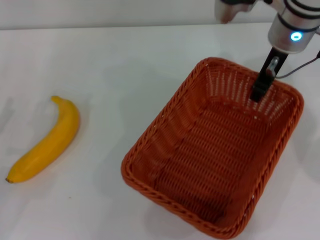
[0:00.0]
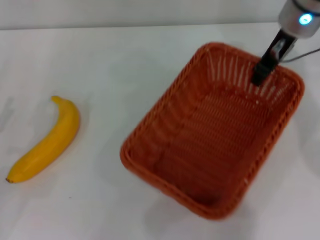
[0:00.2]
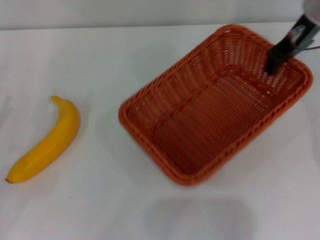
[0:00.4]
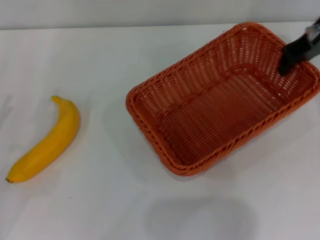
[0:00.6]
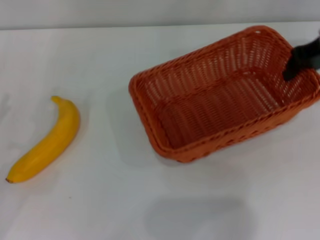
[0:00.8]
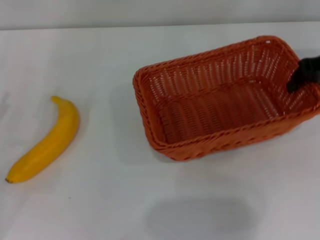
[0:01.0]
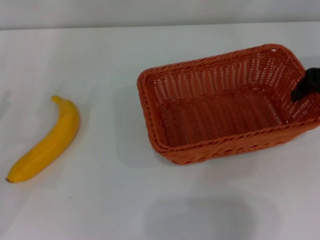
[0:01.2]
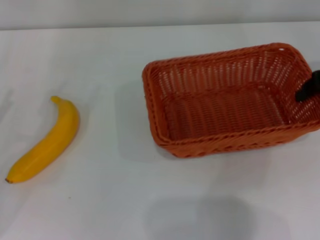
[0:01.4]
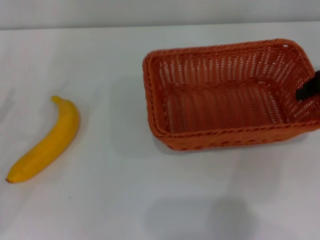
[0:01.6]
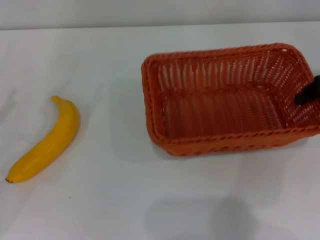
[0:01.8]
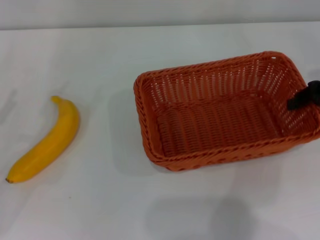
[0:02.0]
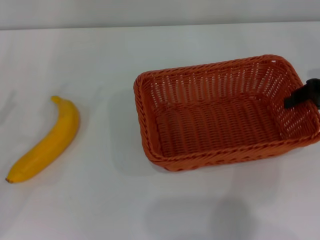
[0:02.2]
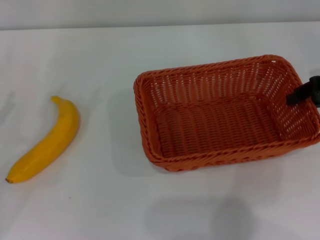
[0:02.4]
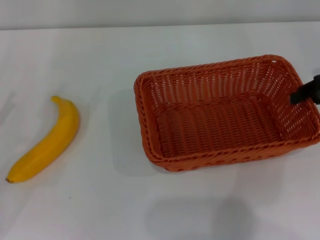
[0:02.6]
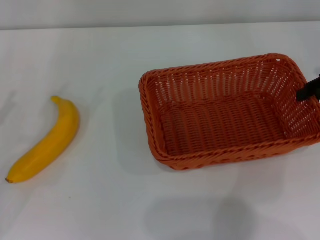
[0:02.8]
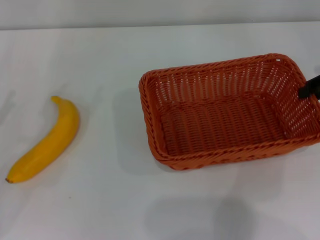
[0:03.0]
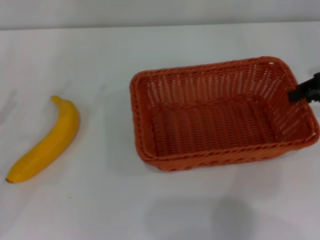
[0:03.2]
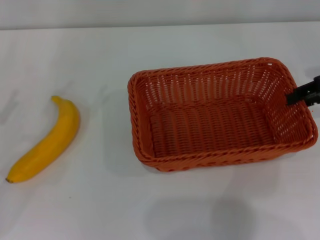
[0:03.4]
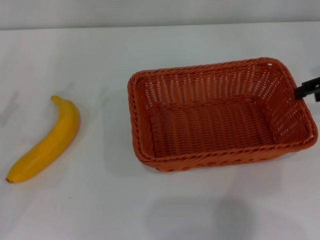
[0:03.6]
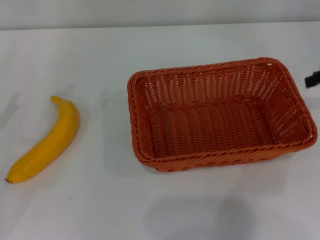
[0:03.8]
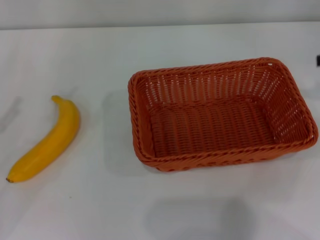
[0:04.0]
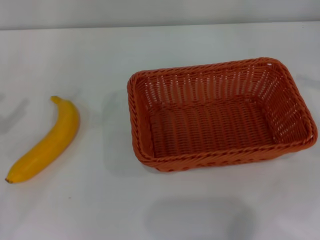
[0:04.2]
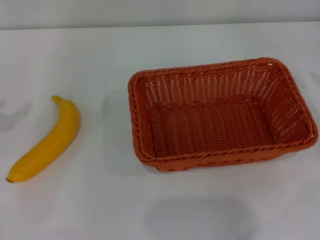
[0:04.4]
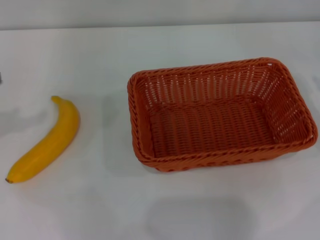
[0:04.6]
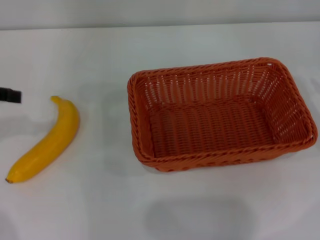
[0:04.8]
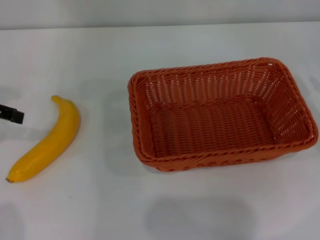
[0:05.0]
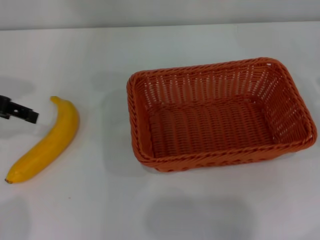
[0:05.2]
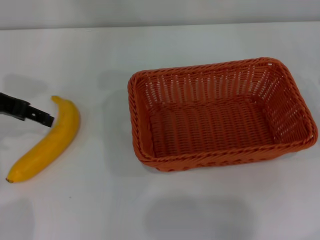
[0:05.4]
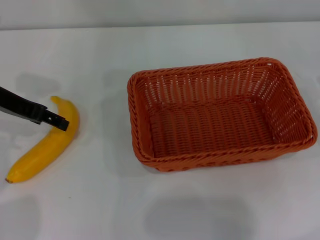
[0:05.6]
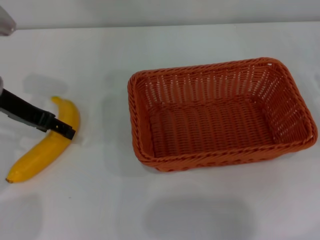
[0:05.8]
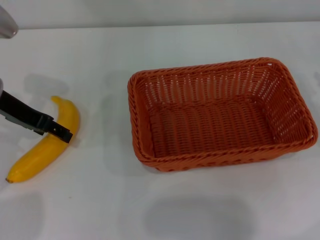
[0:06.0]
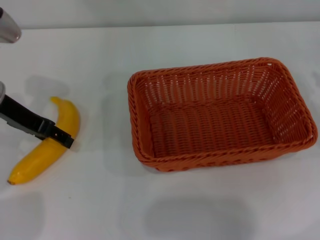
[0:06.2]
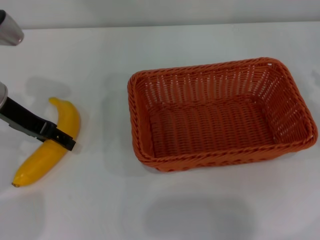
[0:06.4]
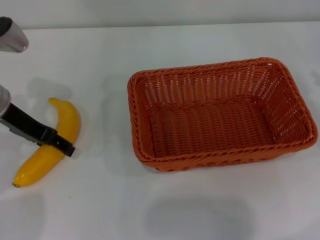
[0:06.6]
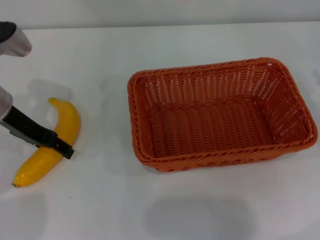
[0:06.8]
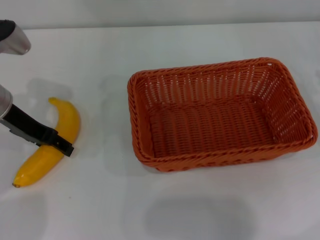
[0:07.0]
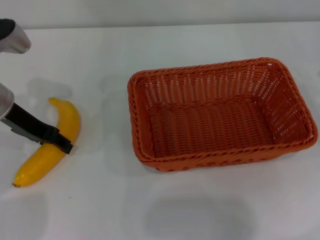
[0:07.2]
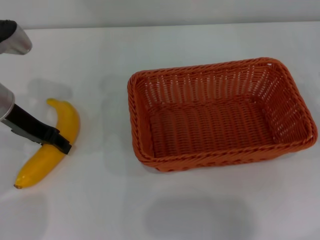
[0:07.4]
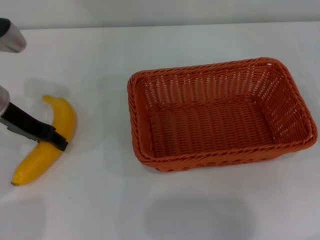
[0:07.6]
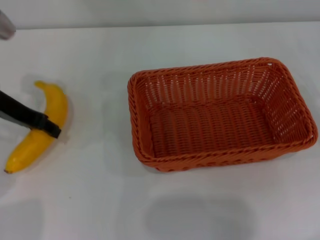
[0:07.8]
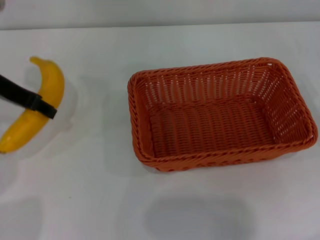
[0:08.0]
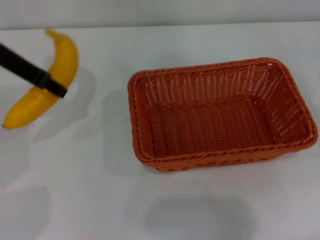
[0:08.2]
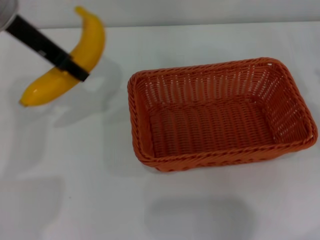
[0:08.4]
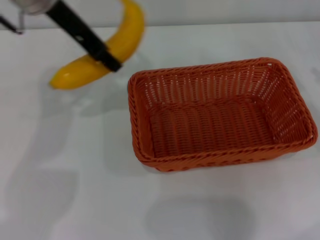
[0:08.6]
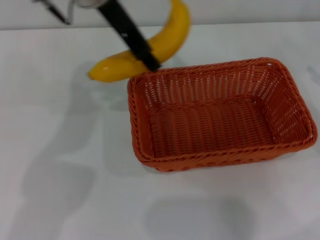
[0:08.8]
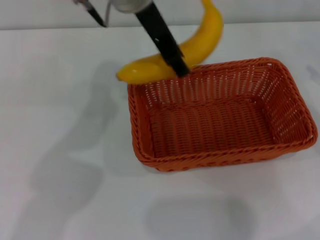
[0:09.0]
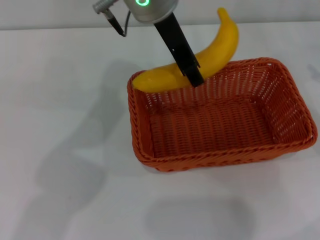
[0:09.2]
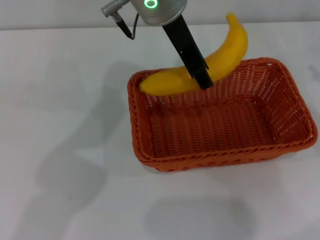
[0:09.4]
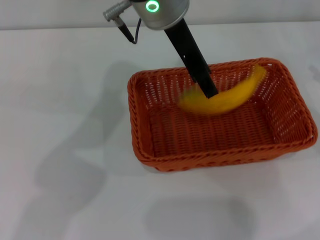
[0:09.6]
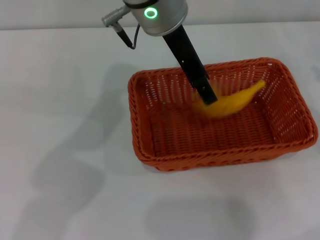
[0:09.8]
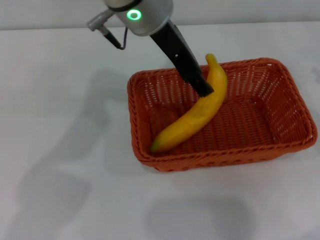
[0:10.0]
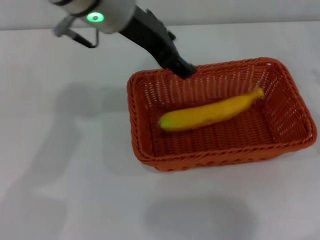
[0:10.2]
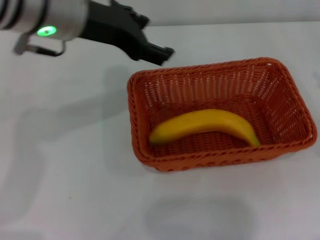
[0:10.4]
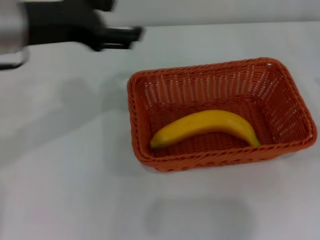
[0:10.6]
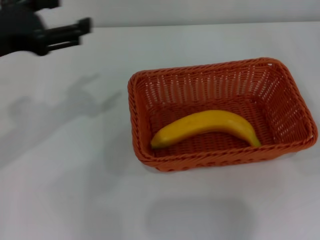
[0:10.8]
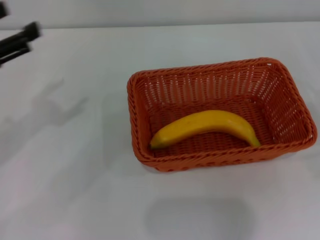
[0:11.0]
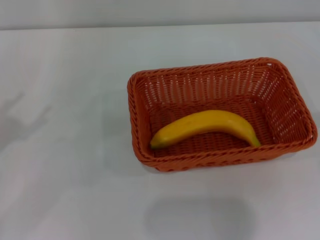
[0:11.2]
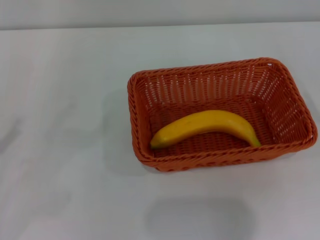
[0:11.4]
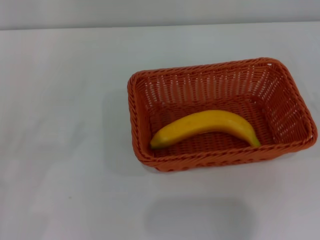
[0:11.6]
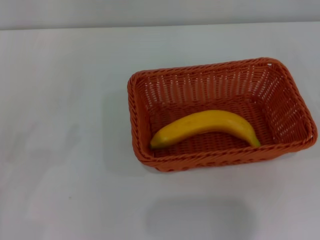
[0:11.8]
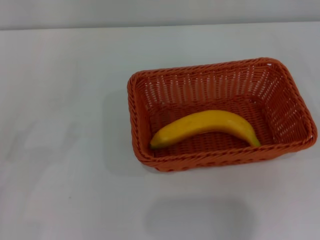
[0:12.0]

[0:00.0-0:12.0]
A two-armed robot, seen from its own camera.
Step, 0:00.4 to 0:03.4: Place the light basket in the center of view with the right gripper.
Step, 0:03.6 to 0:07.8: Pick up the banana with the left gripper.
Step, 0:08.0 to 0:10.2: Place the banana into the light basket with the left gripper.
0:00.0 to 0:01.6: The right gripper travels to the right by some 15 cm.
0:01.6 to 0:03.0: Both grippers stay put.
0:03.0 to 0:04.4: The right gripper shifts some 10 cm to the right, and opens up; the left gripper moves upward, about 10 cm.
0:04.4 to 0:06.0: The left gripper moves to the right and forward, approximately 20 cm.
0:06.0 to 0:07.6: The left gripper closes its fingers.
0:07.6 to 0:09.0: The left gripper heads to the right and upward, covering about 25 cm.
0:09.0 to 0:10.4: The left gripper heads to the left, covering some 10 cm, and opens.
0:10.4 to 0:12.0: The right gripper is displaced backward, downward and to the right by some 10 cm, while the left gripper heads to the left, backward and downward, covering about 35 cm.
